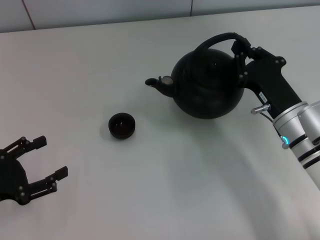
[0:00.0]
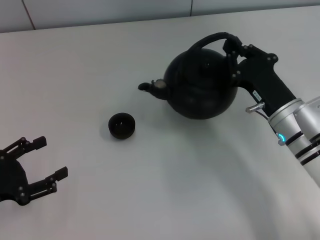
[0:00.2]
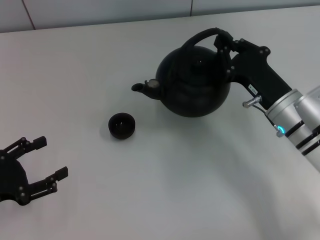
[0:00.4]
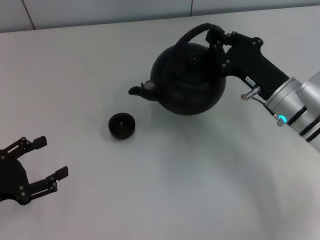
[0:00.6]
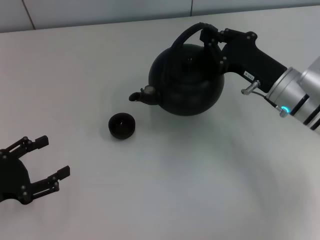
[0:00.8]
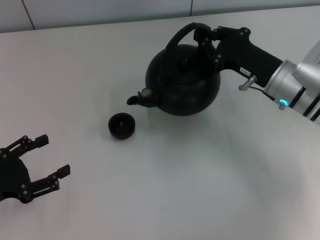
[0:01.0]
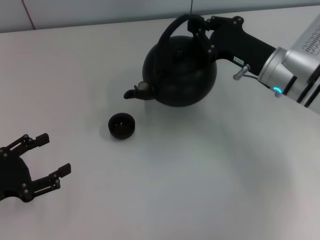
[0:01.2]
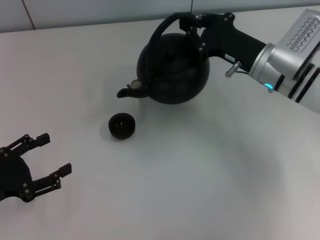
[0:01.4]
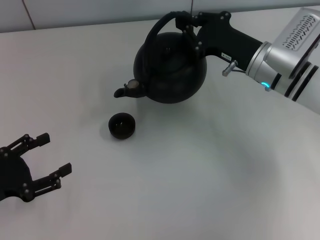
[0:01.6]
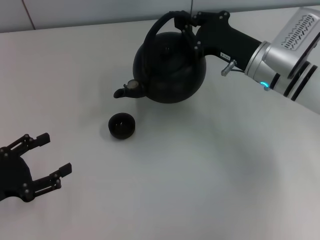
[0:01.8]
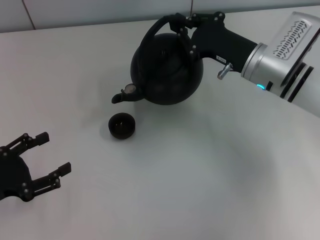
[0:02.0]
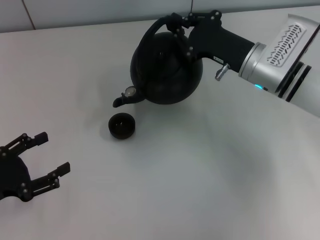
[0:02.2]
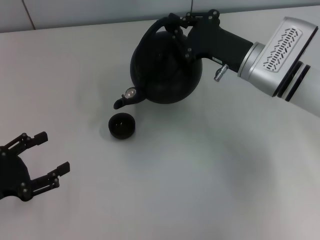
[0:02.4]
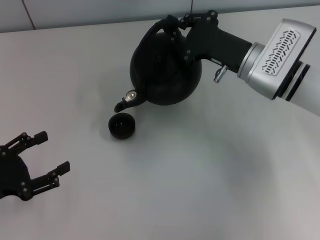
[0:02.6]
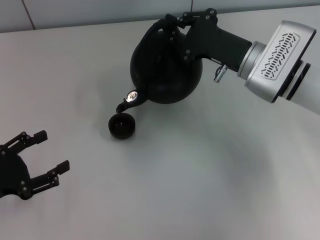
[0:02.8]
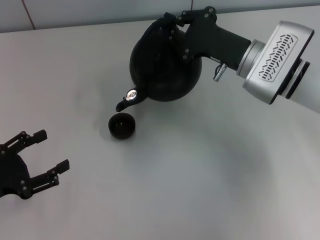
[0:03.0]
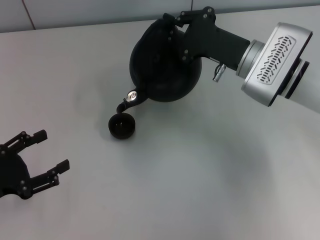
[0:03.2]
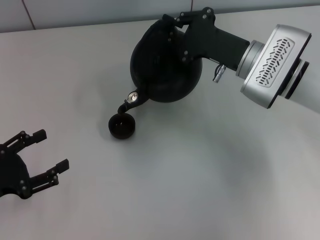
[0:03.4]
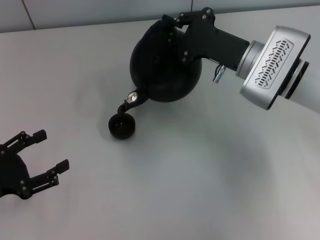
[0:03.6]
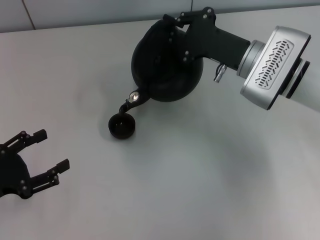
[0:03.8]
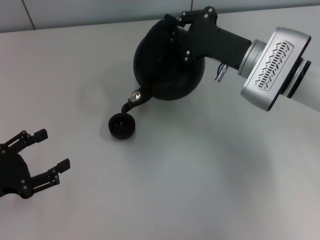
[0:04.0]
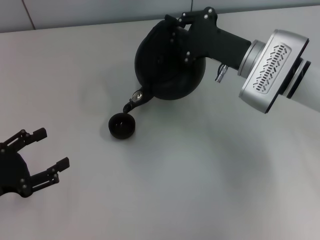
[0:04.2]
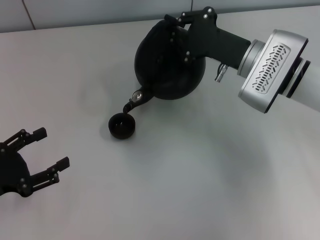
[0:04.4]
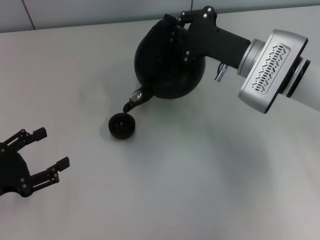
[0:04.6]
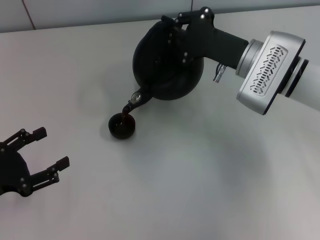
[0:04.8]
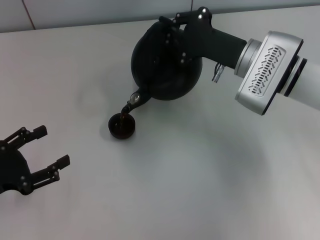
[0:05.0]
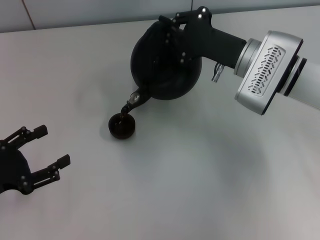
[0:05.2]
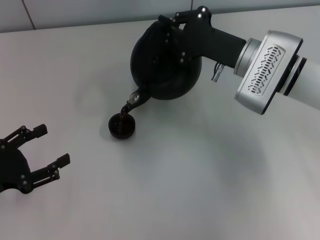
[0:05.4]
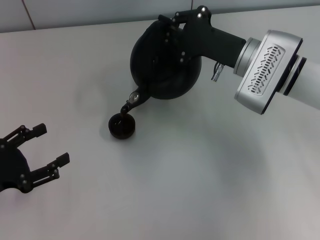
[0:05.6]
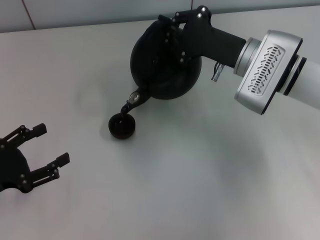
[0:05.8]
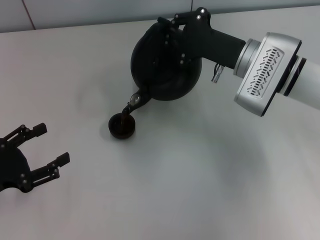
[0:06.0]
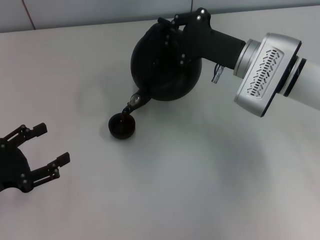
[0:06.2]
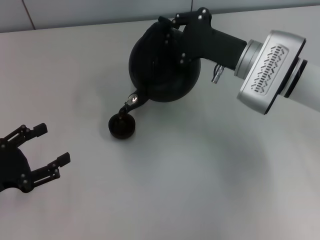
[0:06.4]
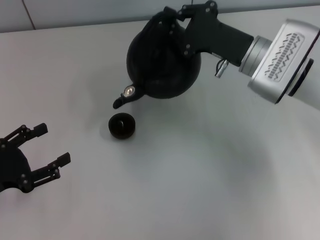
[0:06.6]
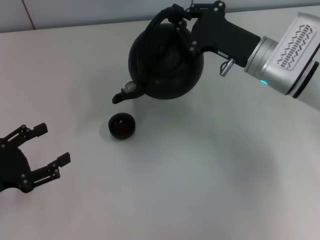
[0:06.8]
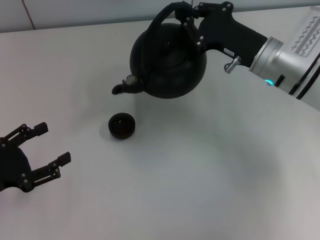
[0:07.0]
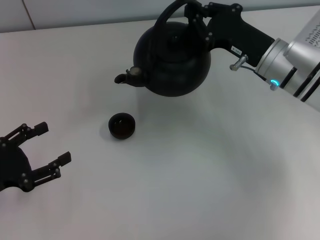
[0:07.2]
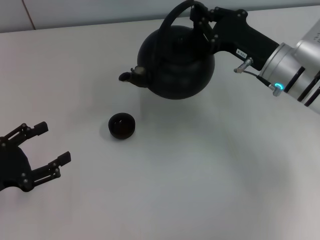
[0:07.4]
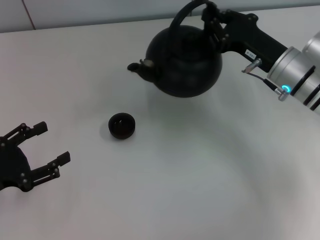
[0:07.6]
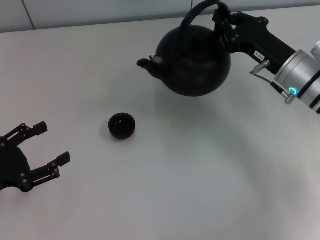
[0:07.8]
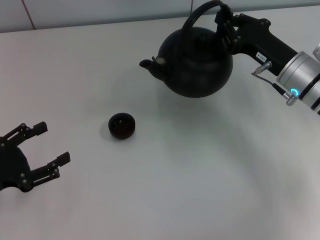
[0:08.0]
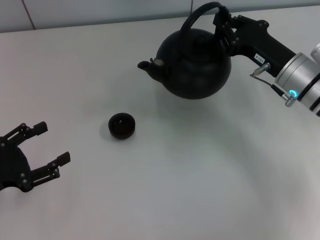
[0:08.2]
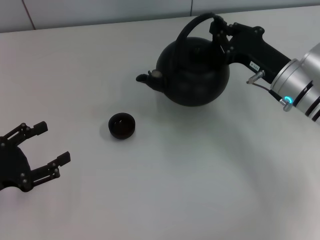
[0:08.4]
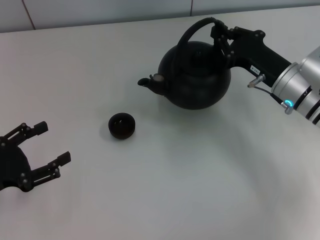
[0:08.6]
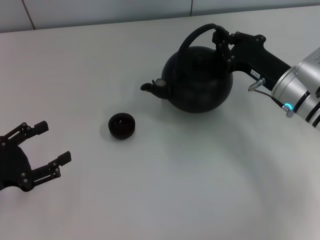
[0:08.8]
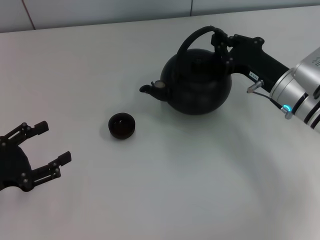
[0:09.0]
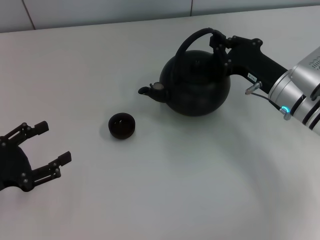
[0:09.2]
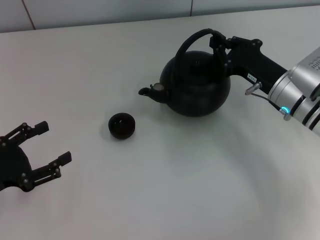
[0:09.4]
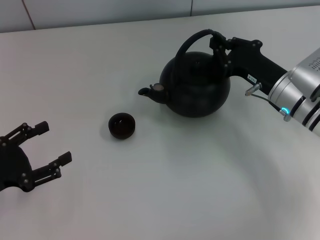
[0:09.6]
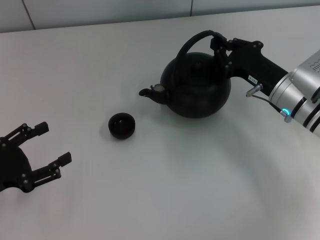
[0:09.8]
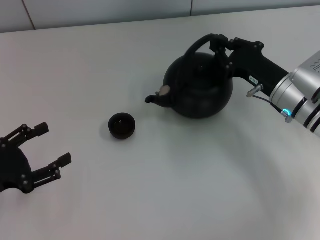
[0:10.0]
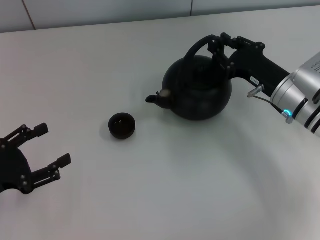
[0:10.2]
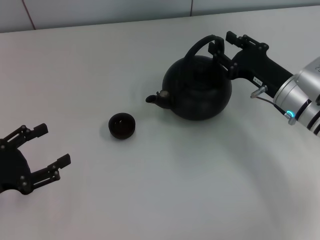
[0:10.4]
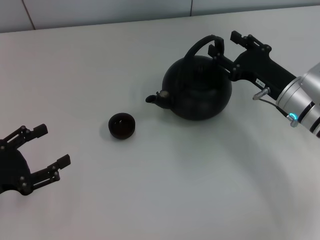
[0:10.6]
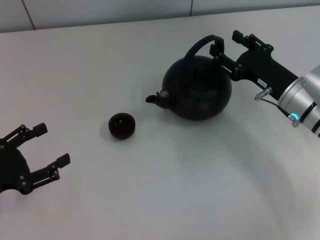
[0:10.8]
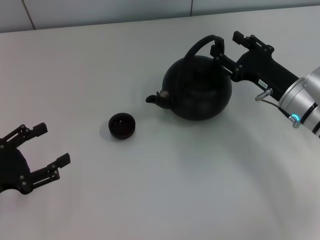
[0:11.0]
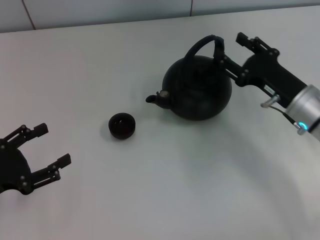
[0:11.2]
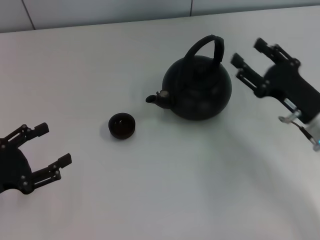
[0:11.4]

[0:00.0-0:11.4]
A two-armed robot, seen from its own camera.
Task of the whole recording: Grasp the handle of the teapot with one hand and pour tea into the teacup.
0:00.0 to 0:01.4: The right gripper moves forward and upward, roughly 10 cm.
0:01.4 to 0:02.8: The grippers stay close to where they were, moving slightly.
0:02.8 to 0:04.2: There are only small adjustments of the grippers.
0:04.2 to 0:05.6: Both grippers stay about where they are.
0:07.2 to 0:08.6: The grippers make only small movements.
0:08.6 to 0:10.0: Both grippers stay put.
0:10.0 to 0:11.4: The right gripper travels backward by approximately 5 cm, and opens.

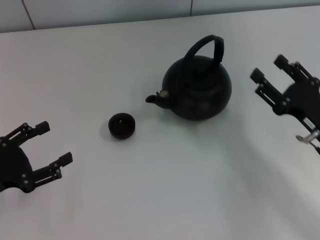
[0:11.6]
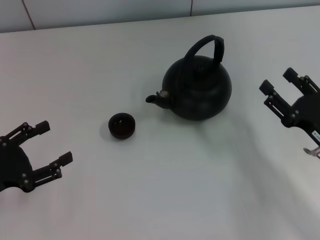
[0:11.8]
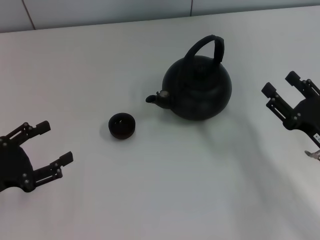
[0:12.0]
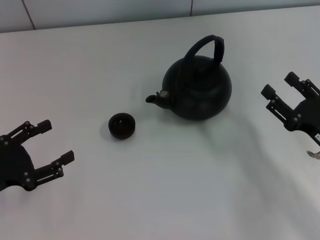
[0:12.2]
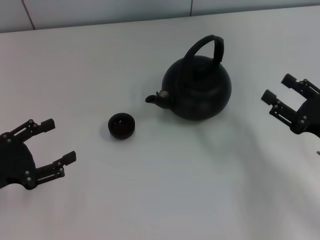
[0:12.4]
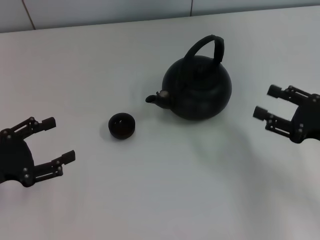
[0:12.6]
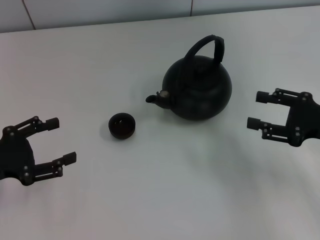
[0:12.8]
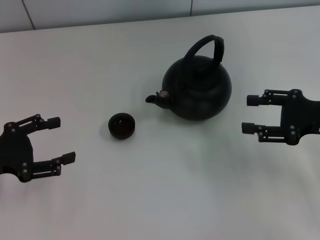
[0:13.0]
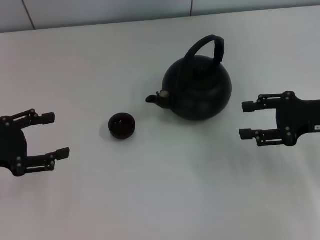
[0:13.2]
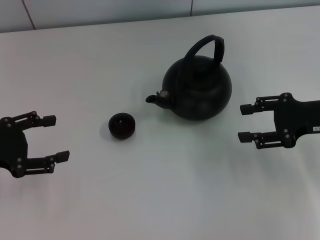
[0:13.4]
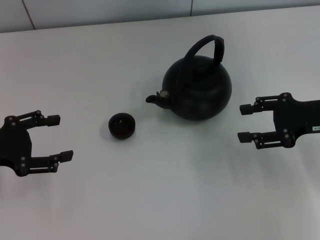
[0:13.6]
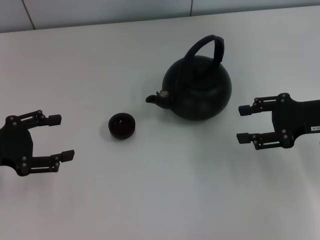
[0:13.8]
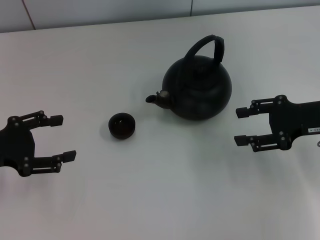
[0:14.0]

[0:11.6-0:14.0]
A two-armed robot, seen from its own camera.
Task of the whole recording: Grasp the handle of the teapot with one hand and pour tea into the teacup.
0:11.6 to 0:12.8: The right gripper ends up approximately 5 cm from where it was.
0:12.8 to 0:14.0: The right gripper shifts by about 5 cm.
